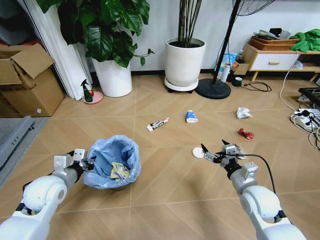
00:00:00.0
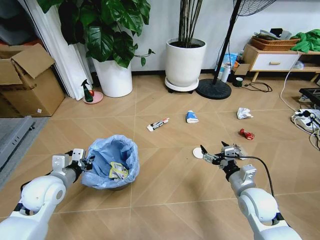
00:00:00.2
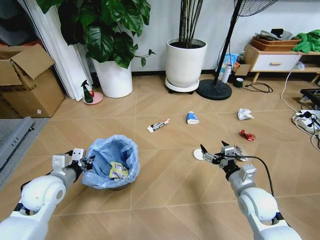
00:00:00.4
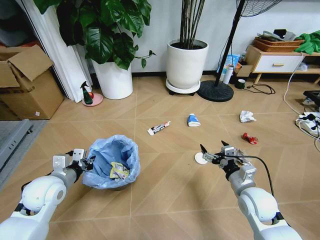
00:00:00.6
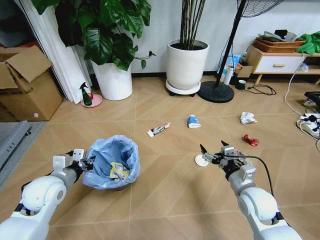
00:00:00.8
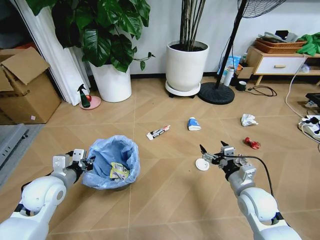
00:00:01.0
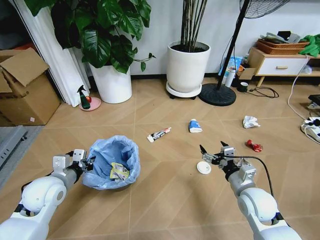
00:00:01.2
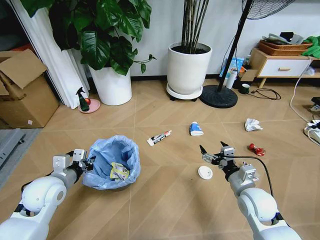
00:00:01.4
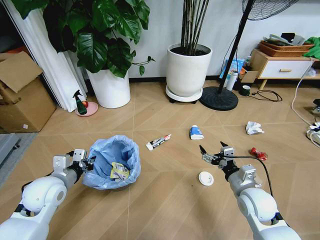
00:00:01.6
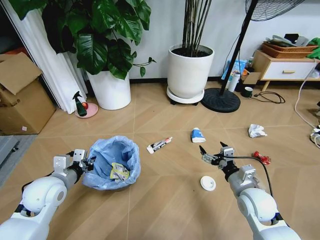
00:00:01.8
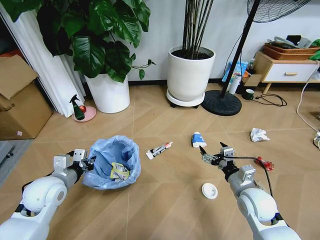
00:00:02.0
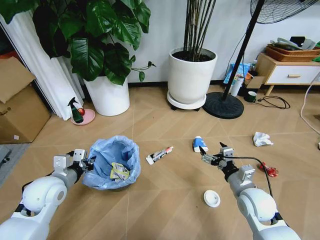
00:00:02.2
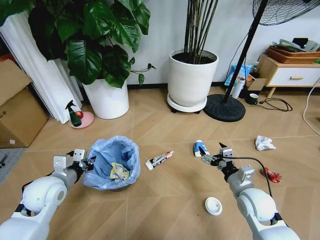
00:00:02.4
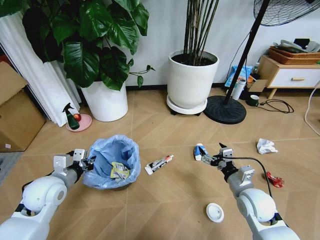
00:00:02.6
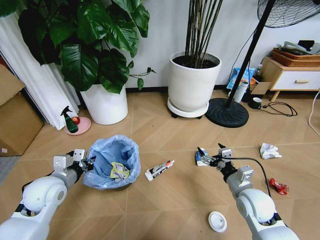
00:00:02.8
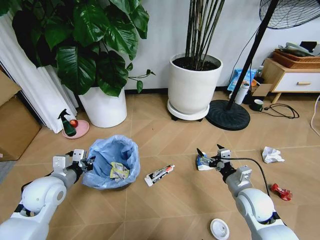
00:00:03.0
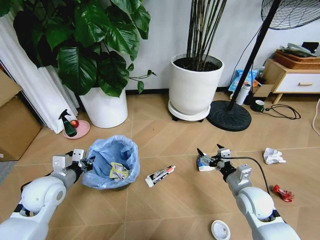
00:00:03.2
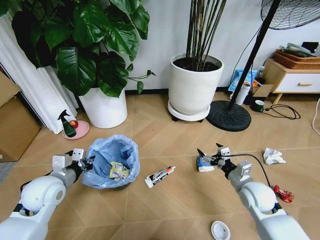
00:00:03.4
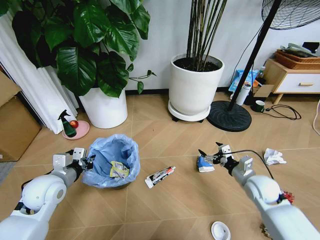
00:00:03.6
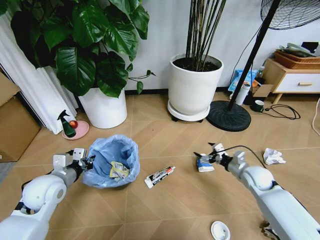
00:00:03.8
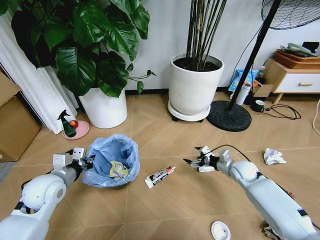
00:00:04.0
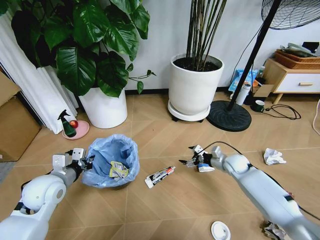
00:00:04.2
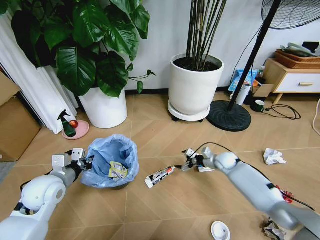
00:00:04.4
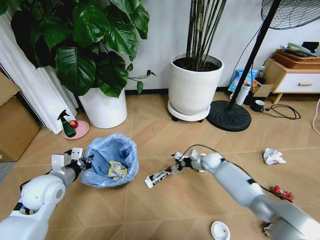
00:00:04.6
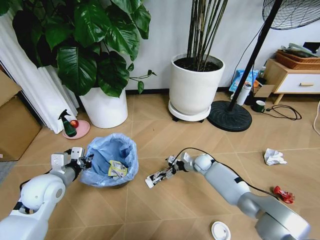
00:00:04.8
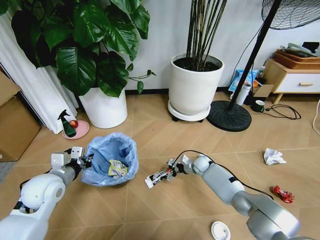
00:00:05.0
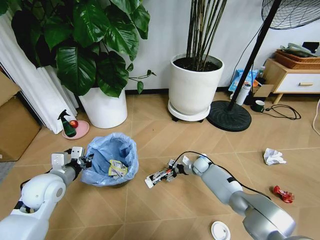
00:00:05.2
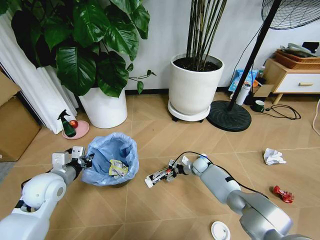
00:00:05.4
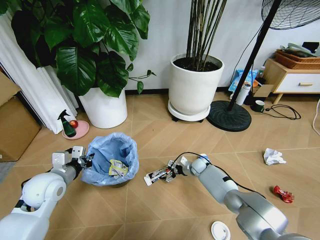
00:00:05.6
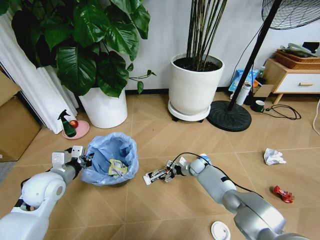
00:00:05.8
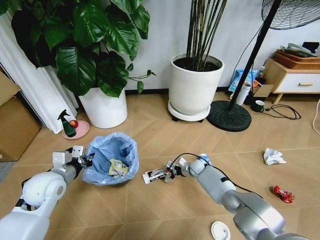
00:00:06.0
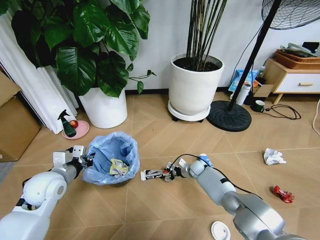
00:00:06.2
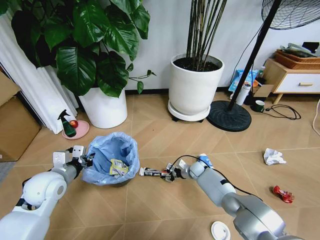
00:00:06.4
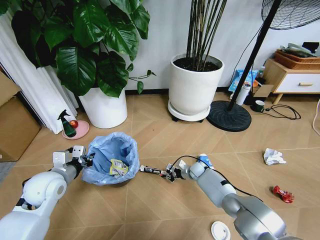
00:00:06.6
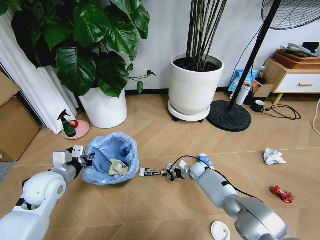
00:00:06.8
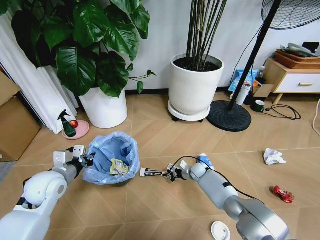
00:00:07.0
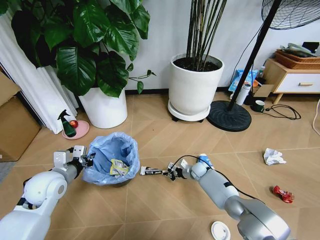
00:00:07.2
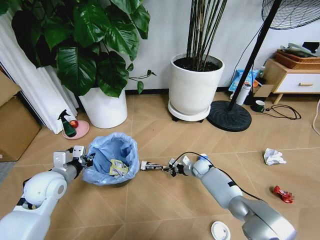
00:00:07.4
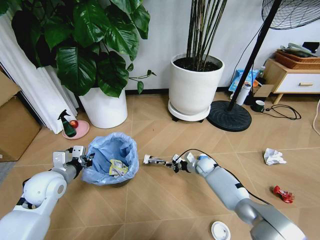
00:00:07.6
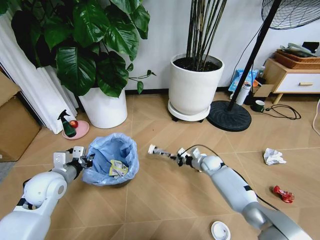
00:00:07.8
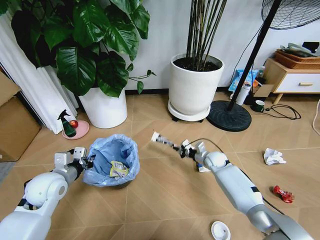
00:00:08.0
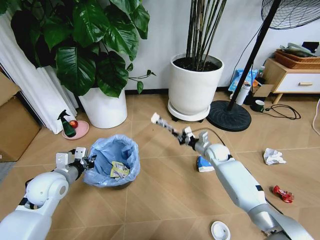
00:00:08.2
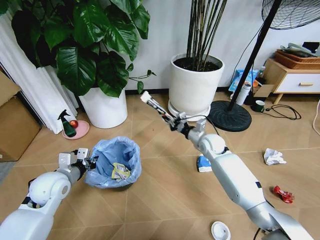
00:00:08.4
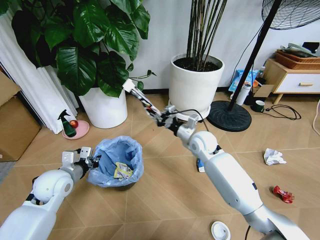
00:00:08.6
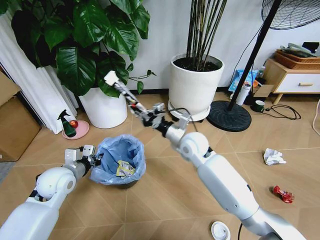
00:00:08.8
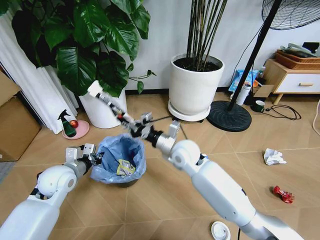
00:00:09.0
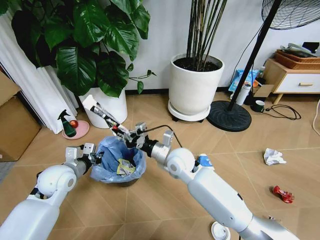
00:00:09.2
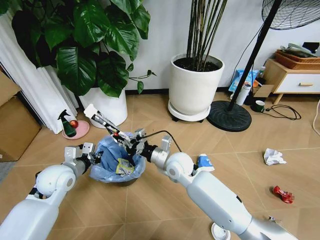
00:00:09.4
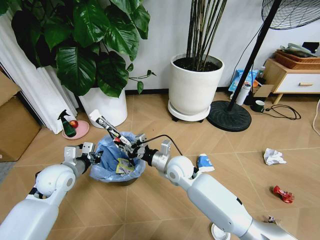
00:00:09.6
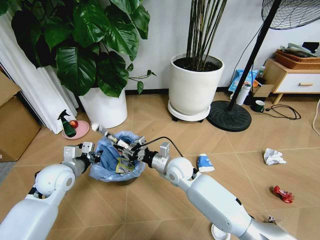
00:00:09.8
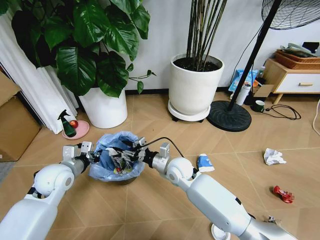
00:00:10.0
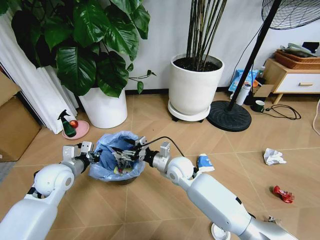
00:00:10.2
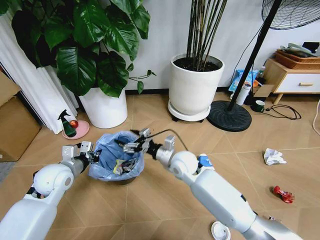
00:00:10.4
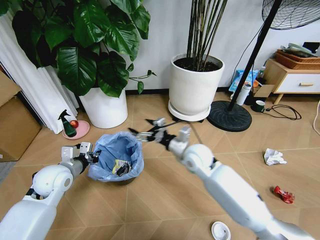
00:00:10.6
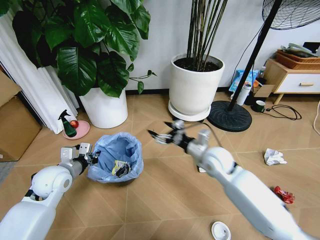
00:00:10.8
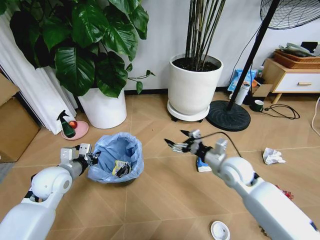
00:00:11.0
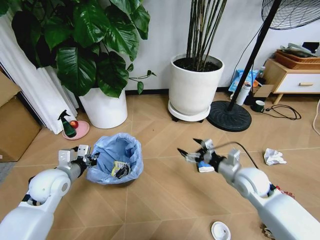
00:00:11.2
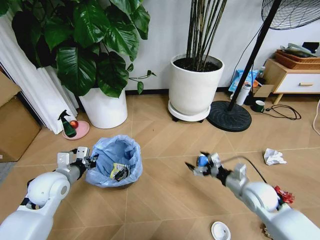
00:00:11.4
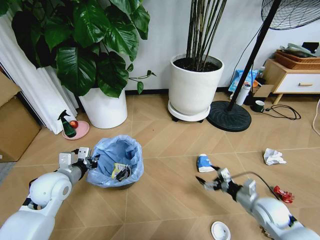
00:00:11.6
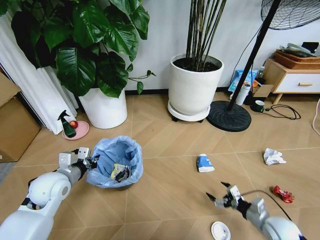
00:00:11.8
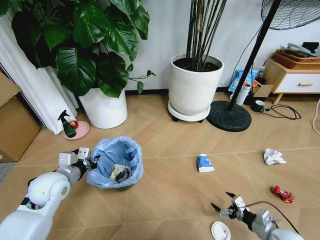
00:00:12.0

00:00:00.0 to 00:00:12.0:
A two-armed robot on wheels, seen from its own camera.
Task of the whole recording: Pick up the trash bin and place the garbage on the floor into it.
00:00:03.0 to 00:00:04.4: The right gripper goes about 25 cm forward and downward.
00:00:04.4 to 00:00:06.0: The right gripper is displaced to the left and downward by roughly 15 cm.
00:00:06.0 to 00:00:07.6: The right gripper closes.
00:00:07.6 to 00:00:09.0: The right gripper heads upward and to the left, covering some 30 cm.
00:00:09.0 to 00:00:10.4: The right gripper moves downward, some 5 cm, and opens.
00:00:10.4 to 00:00:12.0: The right gripper travels to the right, backward and downward by about 40 cm.

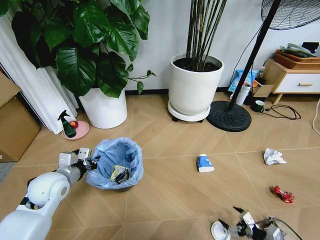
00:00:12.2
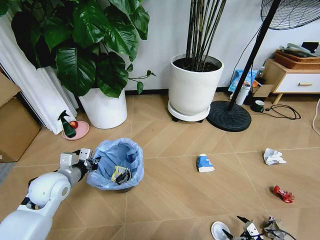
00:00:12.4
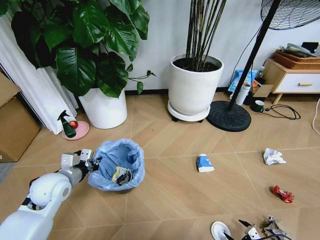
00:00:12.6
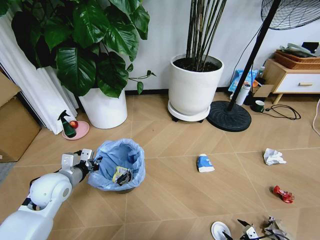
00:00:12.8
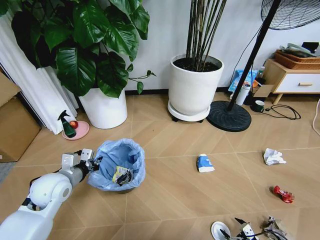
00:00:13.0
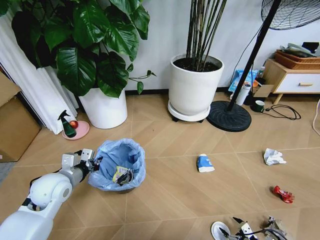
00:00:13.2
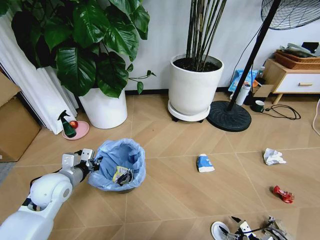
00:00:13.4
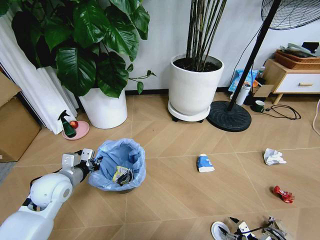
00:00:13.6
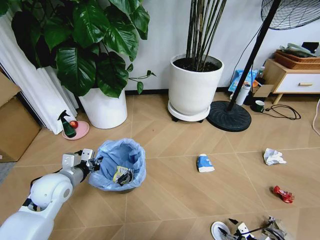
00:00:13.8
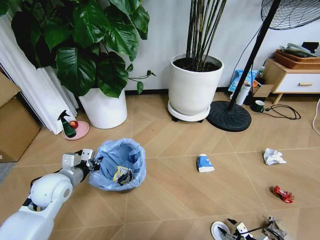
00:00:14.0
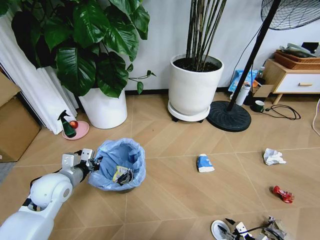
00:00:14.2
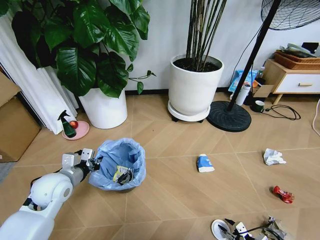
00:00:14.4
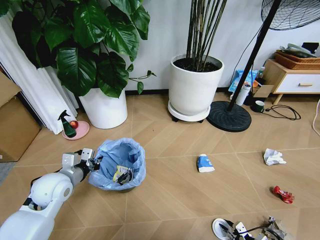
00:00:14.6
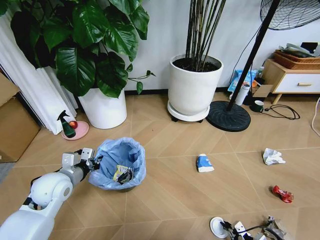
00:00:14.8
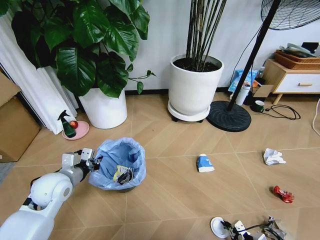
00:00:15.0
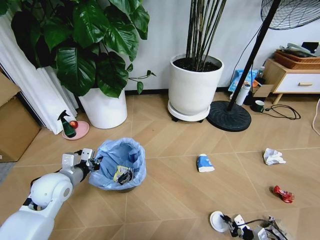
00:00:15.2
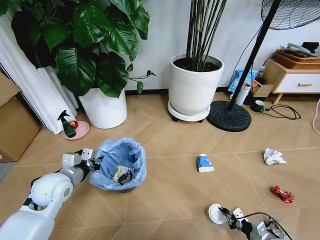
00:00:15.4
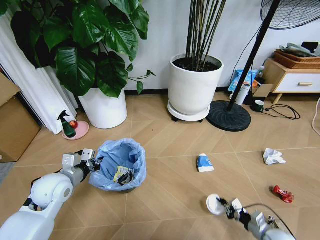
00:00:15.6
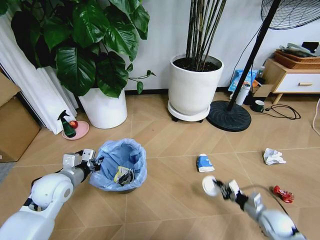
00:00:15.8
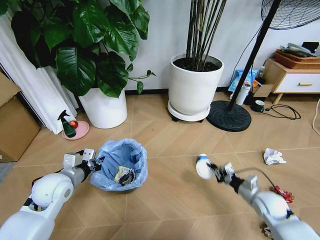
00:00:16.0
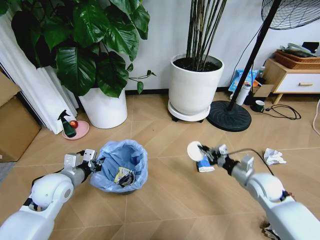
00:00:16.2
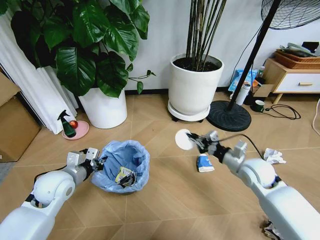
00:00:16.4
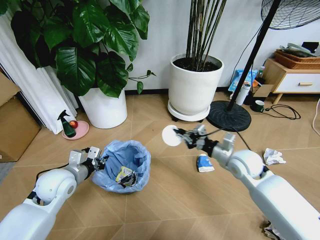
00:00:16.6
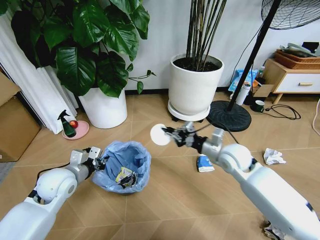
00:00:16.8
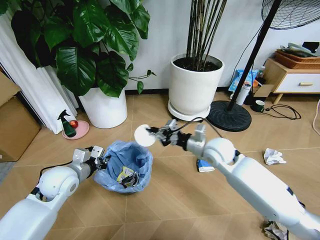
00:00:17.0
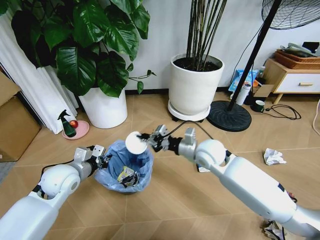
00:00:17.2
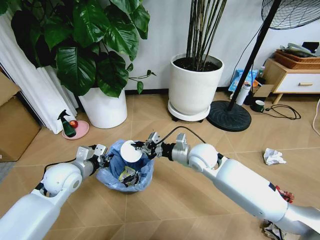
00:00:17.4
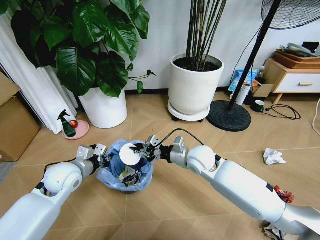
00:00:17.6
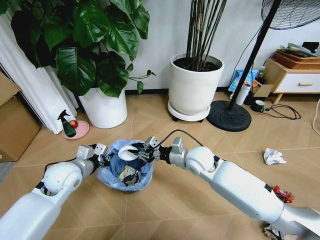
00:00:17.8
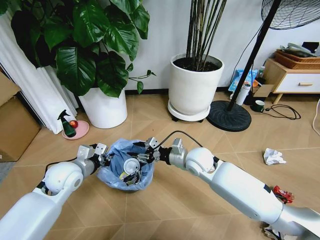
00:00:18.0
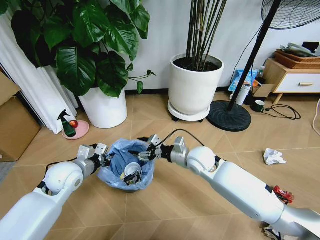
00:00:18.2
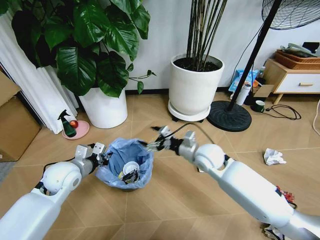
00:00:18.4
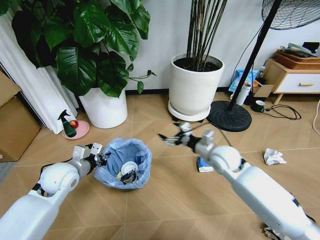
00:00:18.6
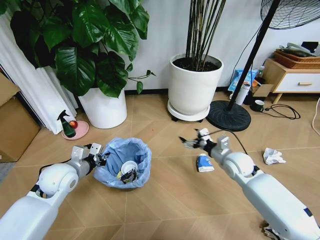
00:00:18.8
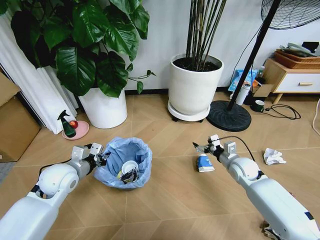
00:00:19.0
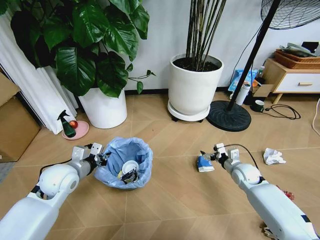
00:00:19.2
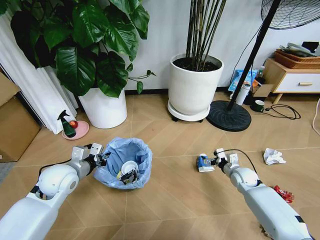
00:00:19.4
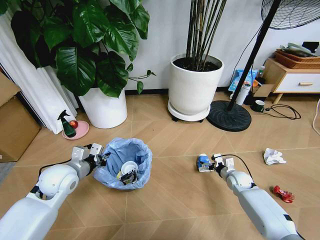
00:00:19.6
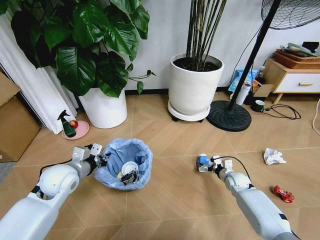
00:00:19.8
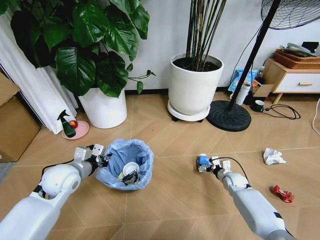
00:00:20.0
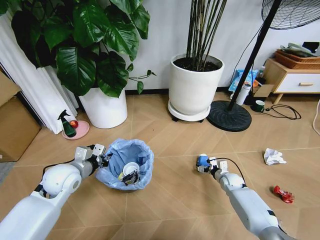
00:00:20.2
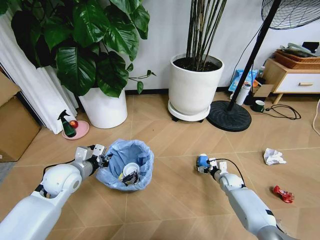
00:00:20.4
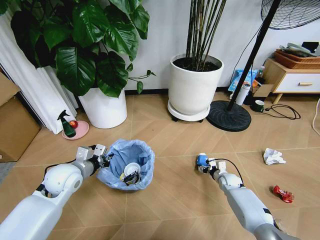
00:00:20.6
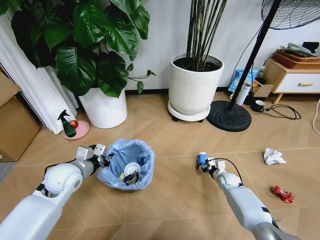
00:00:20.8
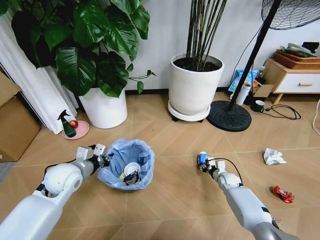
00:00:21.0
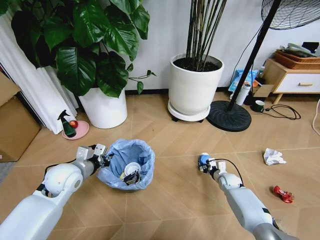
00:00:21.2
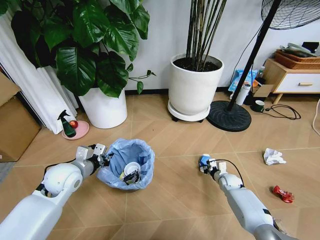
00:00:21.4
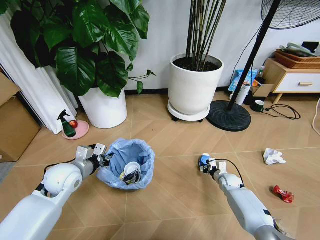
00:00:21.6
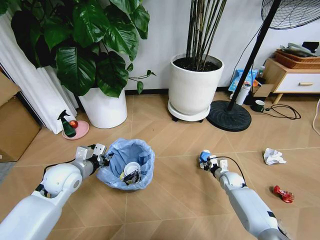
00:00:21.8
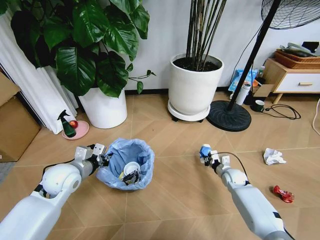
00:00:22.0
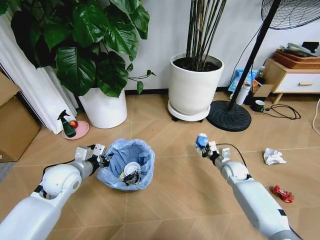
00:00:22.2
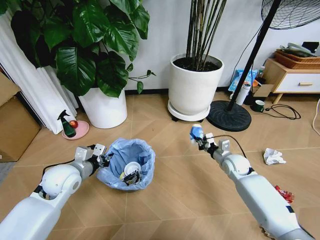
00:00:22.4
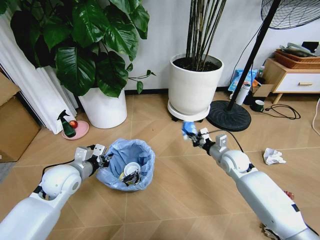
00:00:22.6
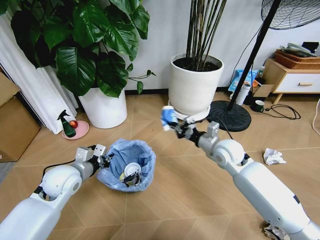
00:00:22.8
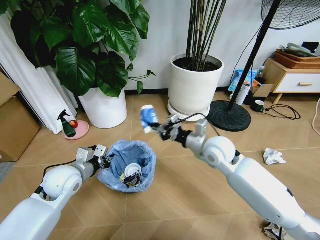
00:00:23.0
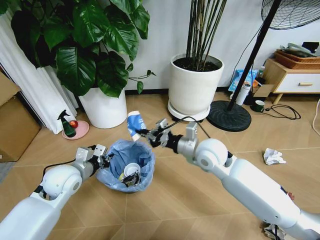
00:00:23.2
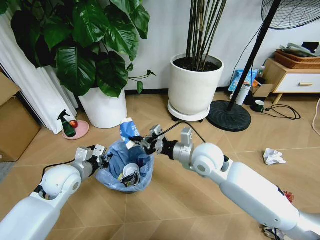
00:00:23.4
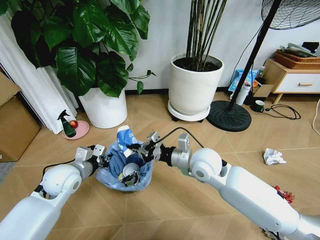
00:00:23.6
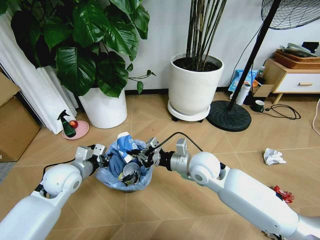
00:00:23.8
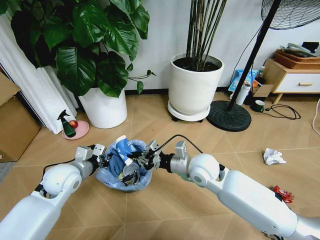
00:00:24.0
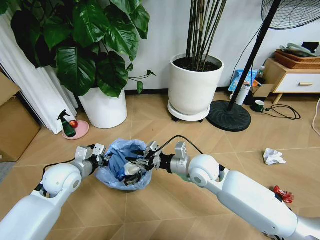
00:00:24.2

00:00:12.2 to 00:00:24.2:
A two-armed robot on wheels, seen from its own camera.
Task of the whole recording: Pick up the trash bin and place the garbage on the floor into it.
00:00:12.2 to 00:00:13.8: The right gripper travels downward by roughly 5 cm.
00:00:13.8 to 00:00:15.2: The right gripper closes its fingers.
00:00:15.2 to 00:00:16.6: The right gripper is displaced upward, forward and to the left by some 40 cm.
00:00:16.6 to 00:00:18.2: The right gripper shifts approximately 15 cm to the left, and opens.
00:00:18.2 to 00:00:19.8: The right gripper heads to the right and downward, covering roughly 30 cm.
00:00:19.8 to 00:00:21.2: The right gripper closes.
00:00:21.2 to 00:00:22.6: The right gripper is displaced upward by about 20 cm.
00:00:22.6 to 00:00:24.2: The right gripper shifts about 15 cm to the left and backward.
